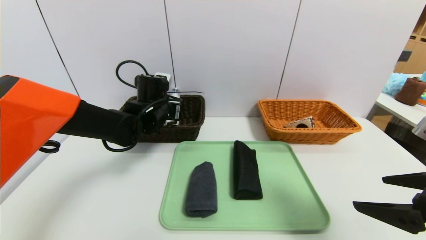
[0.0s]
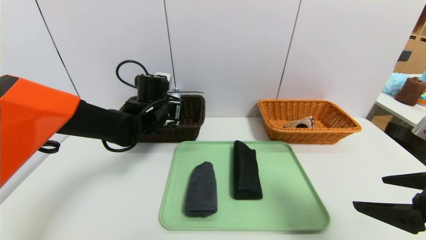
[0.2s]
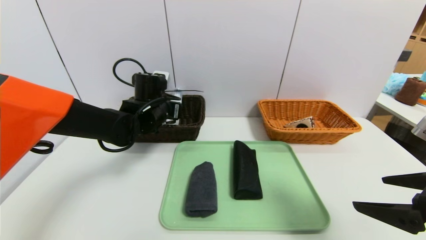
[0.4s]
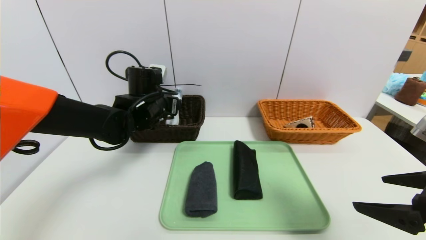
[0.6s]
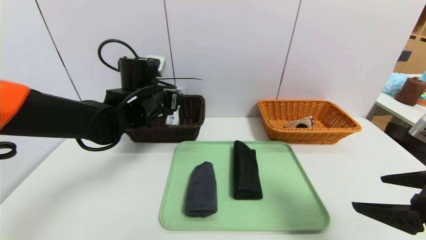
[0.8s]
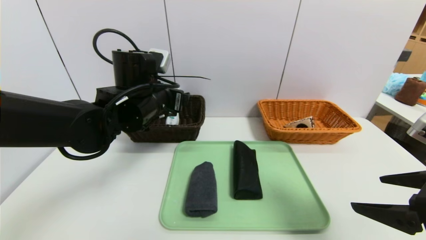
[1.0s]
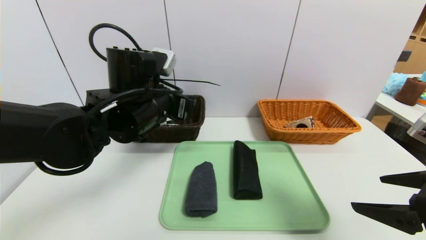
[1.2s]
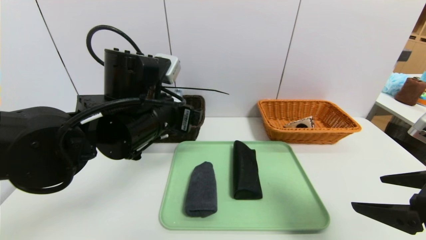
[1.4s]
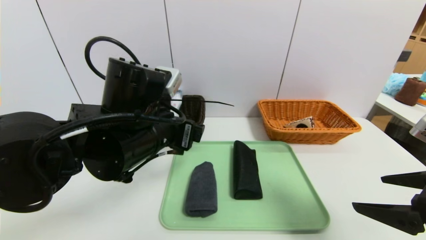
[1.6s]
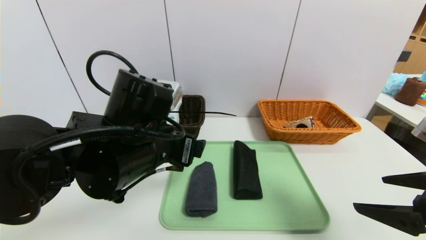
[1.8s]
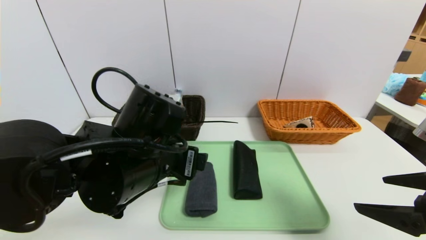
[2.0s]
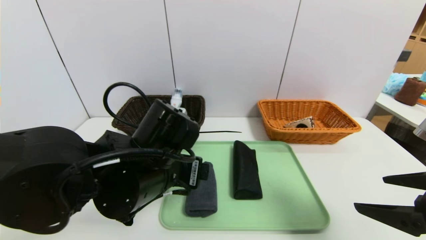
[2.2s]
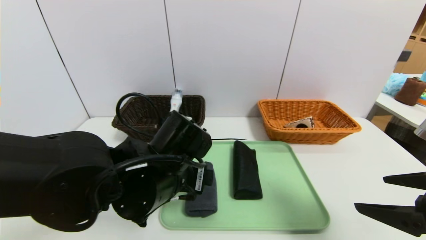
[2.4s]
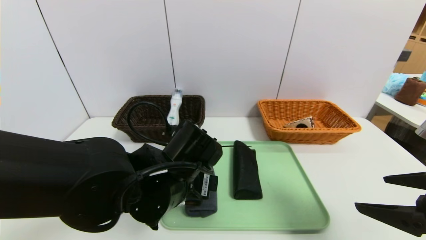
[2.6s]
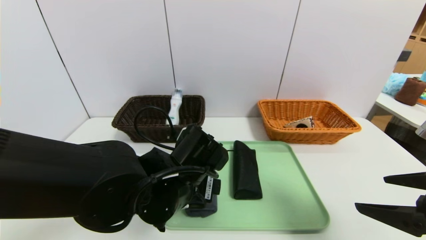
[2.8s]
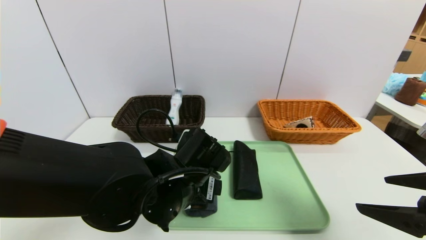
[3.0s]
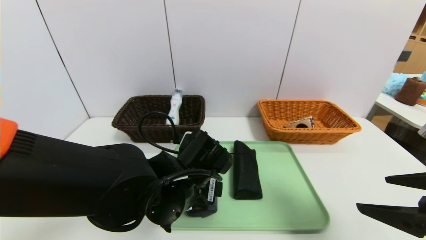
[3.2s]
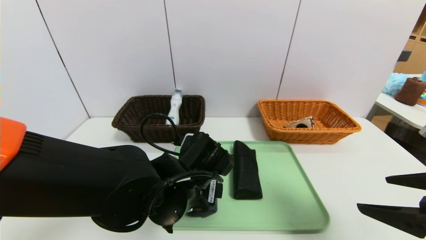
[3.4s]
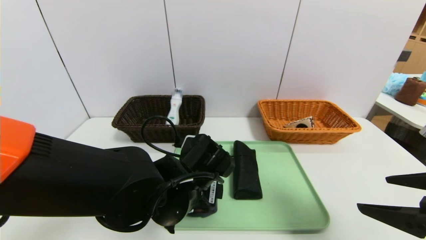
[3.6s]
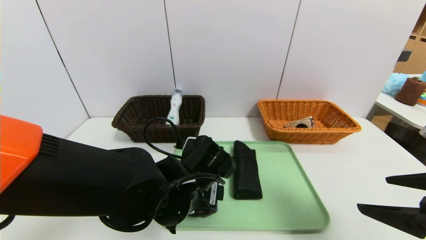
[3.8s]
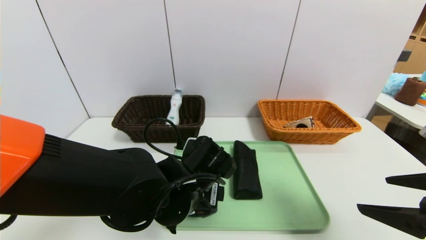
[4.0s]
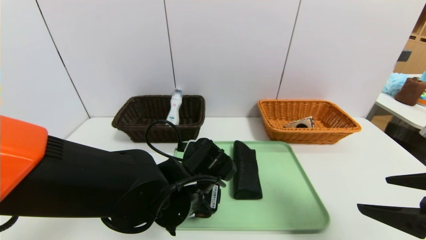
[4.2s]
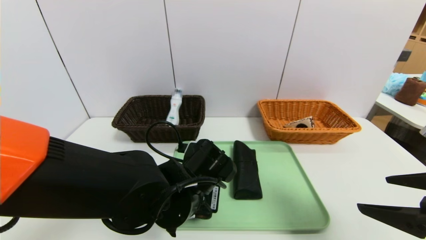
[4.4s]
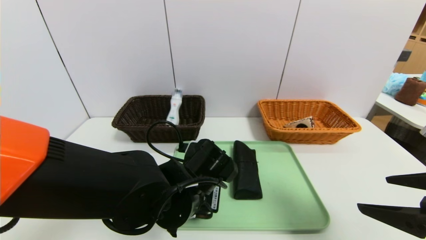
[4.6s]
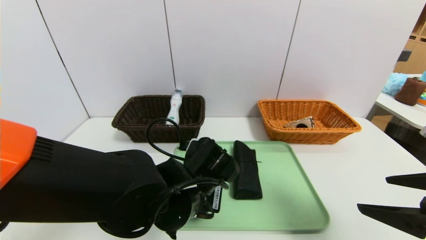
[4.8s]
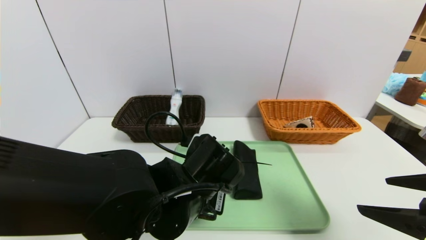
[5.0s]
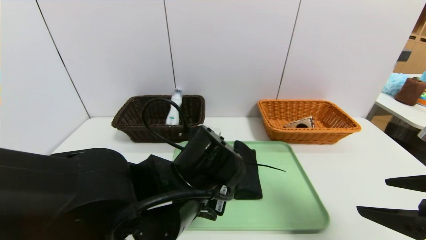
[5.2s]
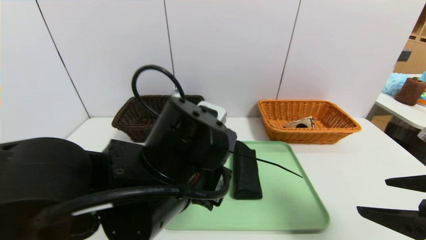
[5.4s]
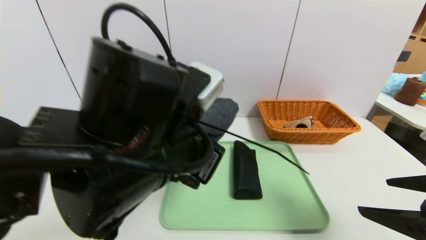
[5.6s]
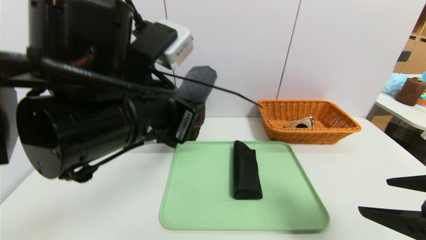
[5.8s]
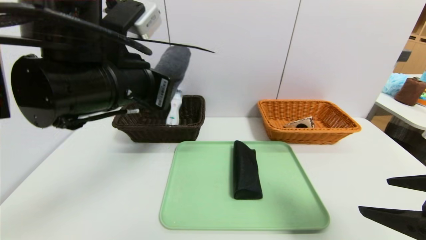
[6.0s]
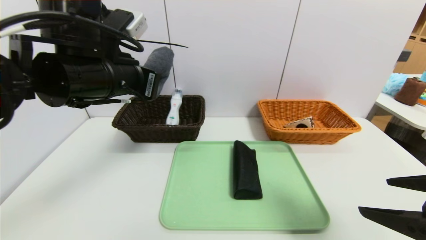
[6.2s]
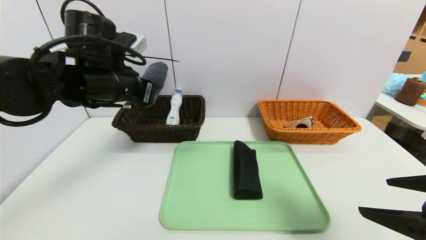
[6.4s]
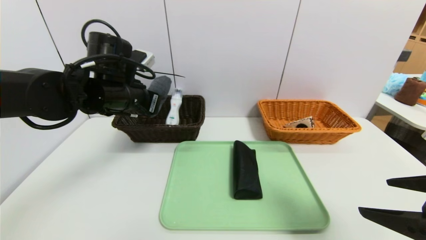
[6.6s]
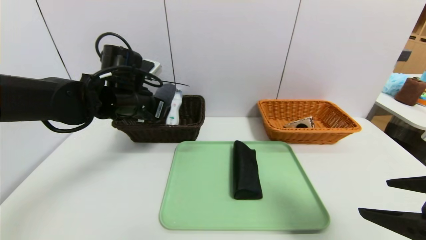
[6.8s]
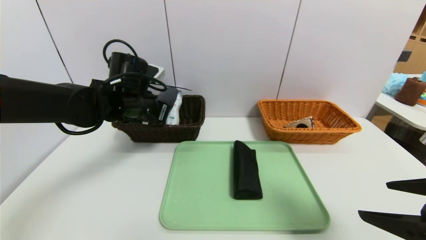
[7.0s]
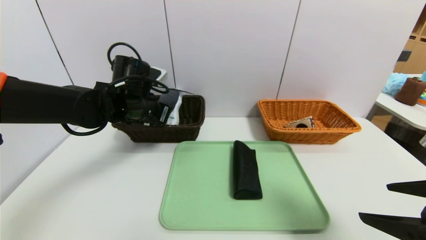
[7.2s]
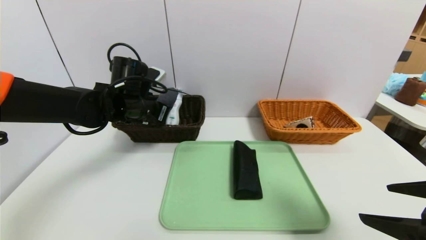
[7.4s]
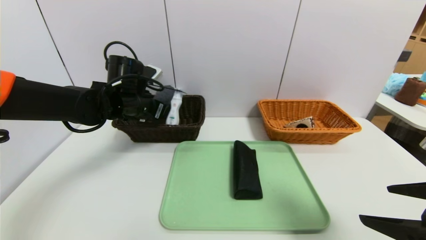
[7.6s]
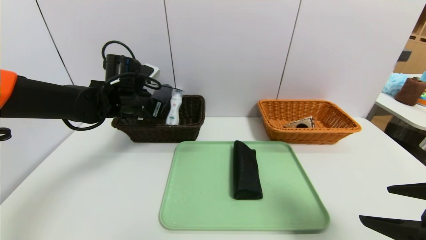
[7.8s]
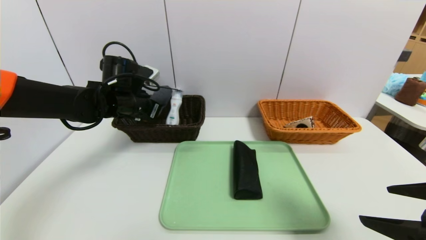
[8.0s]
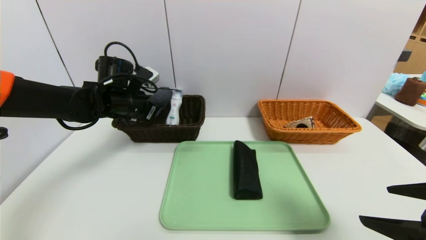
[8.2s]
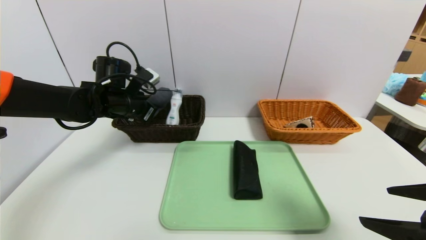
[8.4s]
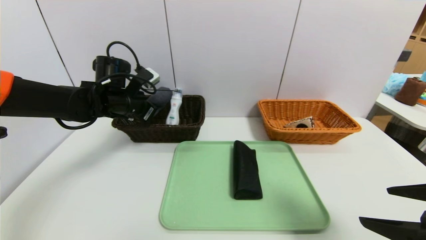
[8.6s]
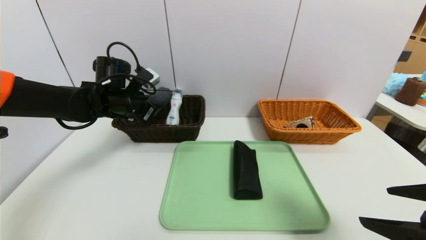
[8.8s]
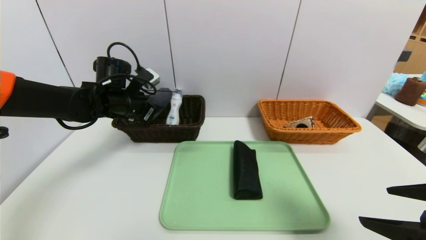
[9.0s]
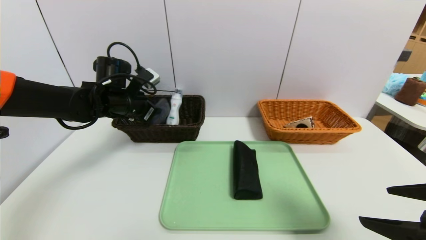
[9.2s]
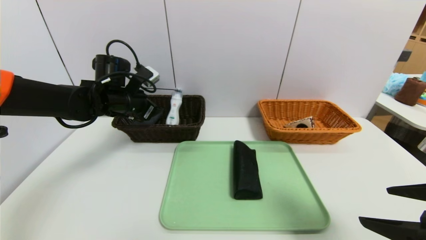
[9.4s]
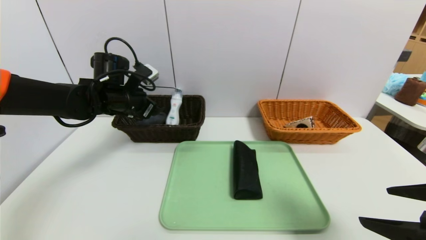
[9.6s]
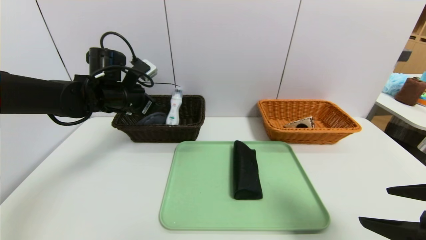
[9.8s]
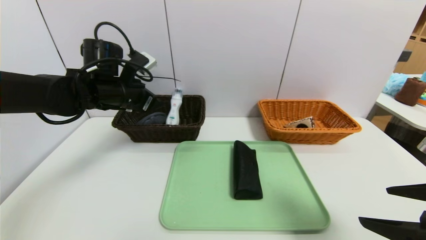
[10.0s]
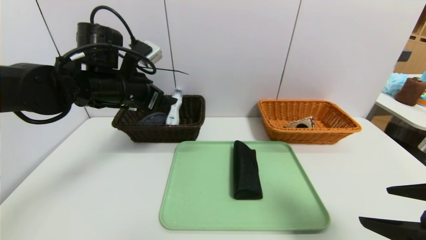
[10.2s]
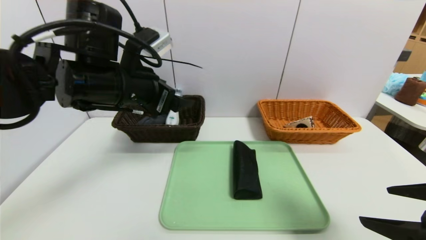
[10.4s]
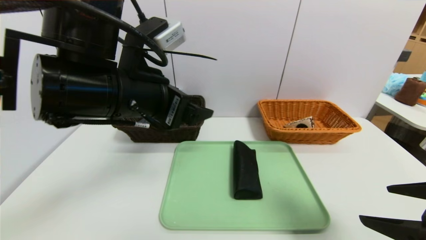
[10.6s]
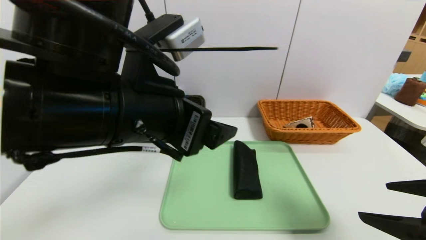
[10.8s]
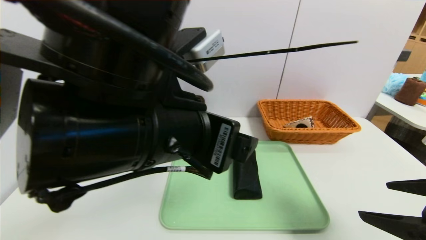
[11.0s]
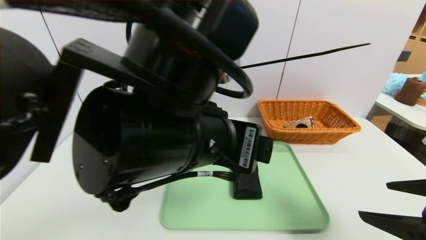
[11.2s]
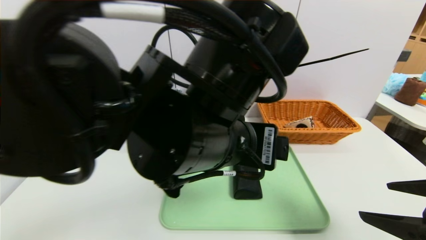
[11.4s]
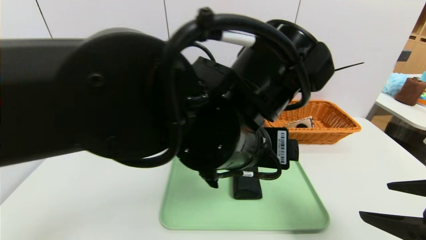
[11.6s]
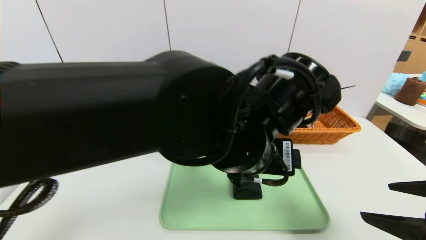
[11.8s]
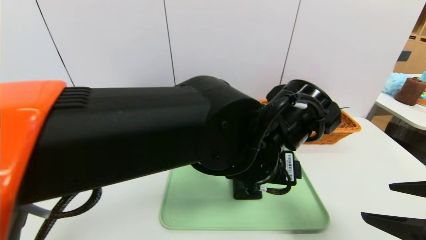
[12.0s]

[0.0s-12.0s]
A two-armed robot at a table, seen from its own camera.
Task of the whole recording: place the food in the right basket with the right gripper, and place the non food items in the left basket with the left gripper.
Step, 0.8s to 9.4s: Grasp the grey towel and put it in the left basket.
0.0s to 1.6s: The left gripper travels backward by roughly 15 cm.
1.6s to 3.0s: The left gripper heads downward, covering some 10 cm.
3.0s to 4.4s: The left gripper closes up.
4.4s to 6.0s: The left gripper shifts some 20 cm upward and to the left, and closes its fingers.
6.0s to 7.6s: The left gripper heads forward and downward, covering some 20 cm.
7.6s to 9.0s: The left gripper opens its fingers.
9.0s to 10.4s: The left gripper shifts some 15 cm backward, upward and to the right, and opens up.
10.4s to 12.0s: The left gripper shifts about 20 cm to the right.

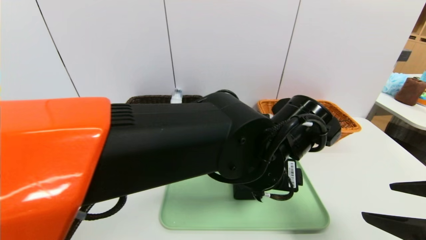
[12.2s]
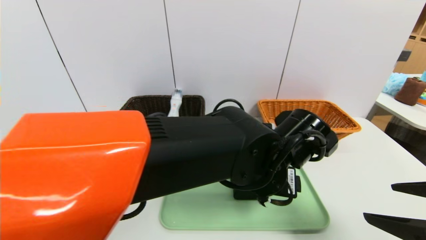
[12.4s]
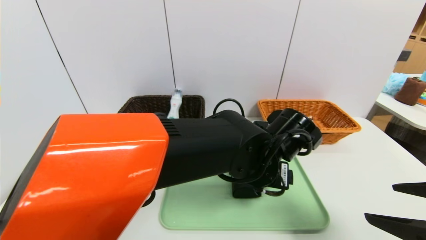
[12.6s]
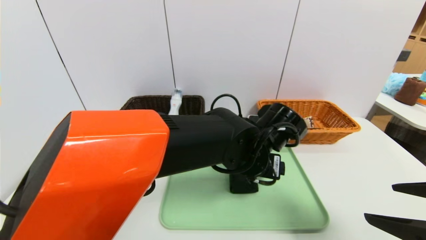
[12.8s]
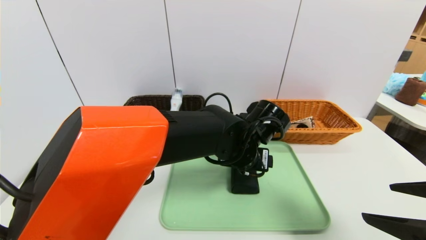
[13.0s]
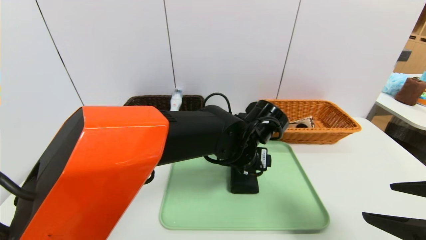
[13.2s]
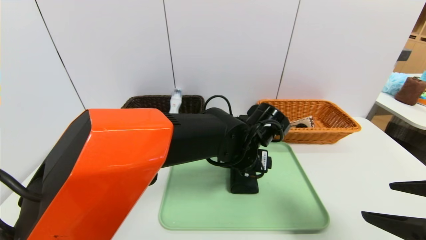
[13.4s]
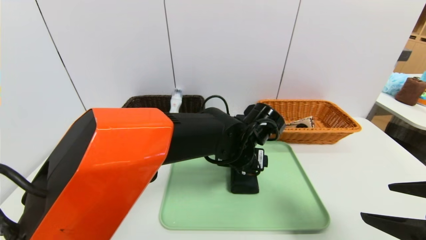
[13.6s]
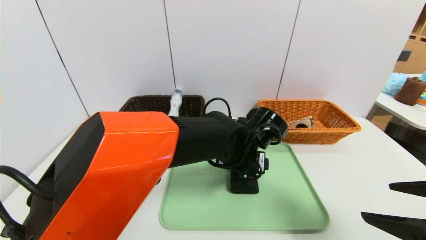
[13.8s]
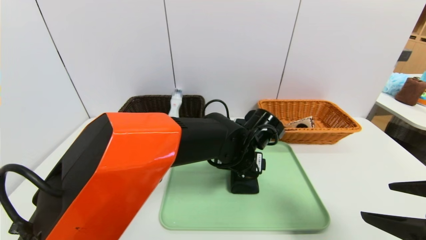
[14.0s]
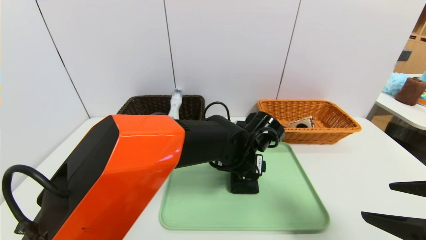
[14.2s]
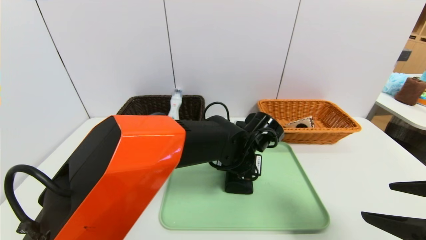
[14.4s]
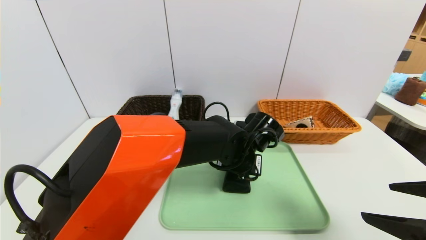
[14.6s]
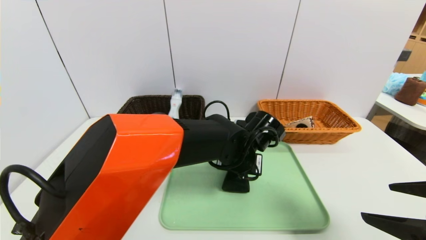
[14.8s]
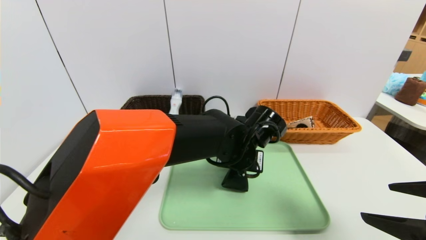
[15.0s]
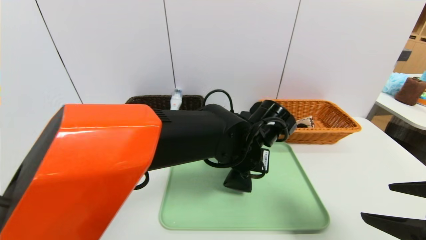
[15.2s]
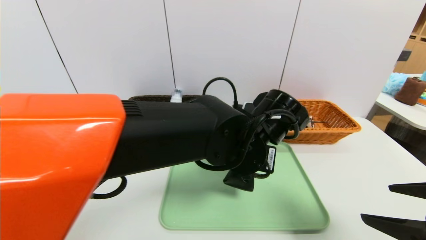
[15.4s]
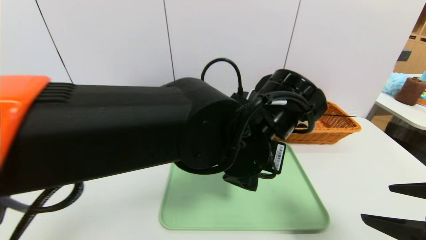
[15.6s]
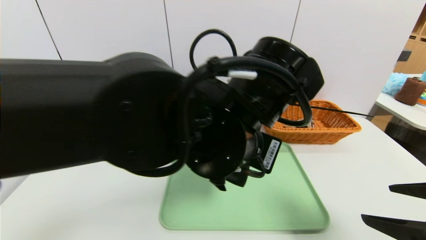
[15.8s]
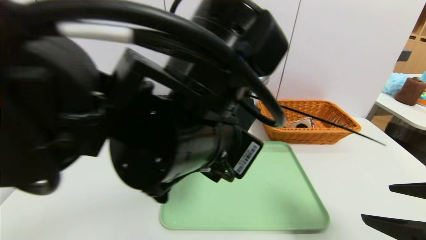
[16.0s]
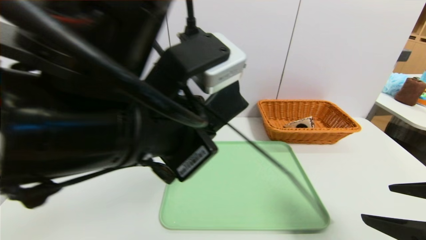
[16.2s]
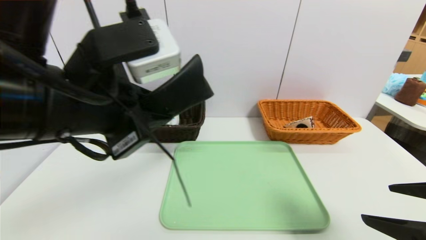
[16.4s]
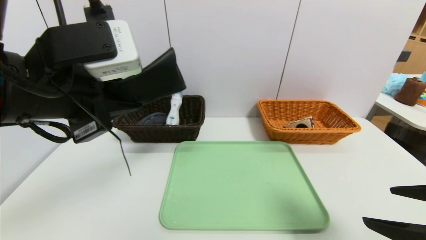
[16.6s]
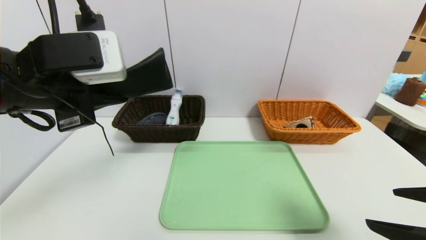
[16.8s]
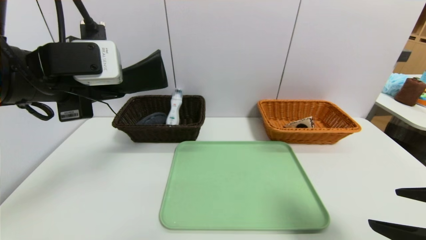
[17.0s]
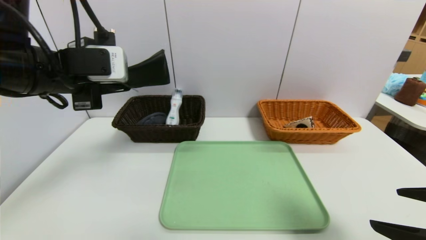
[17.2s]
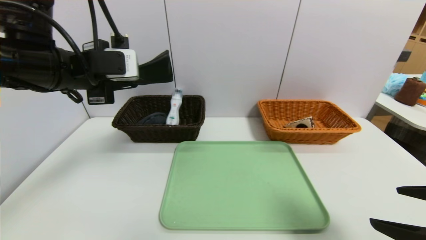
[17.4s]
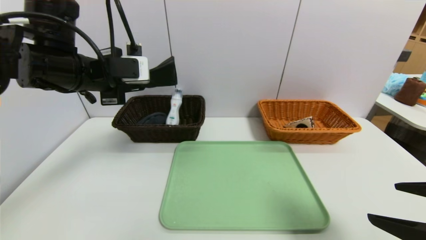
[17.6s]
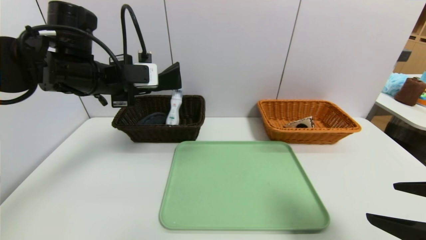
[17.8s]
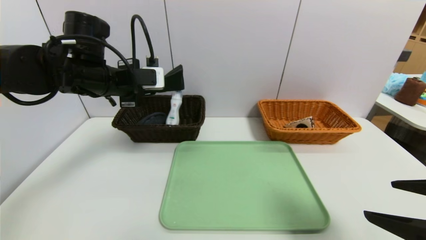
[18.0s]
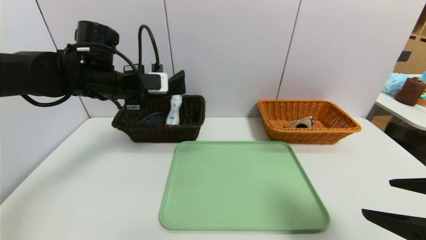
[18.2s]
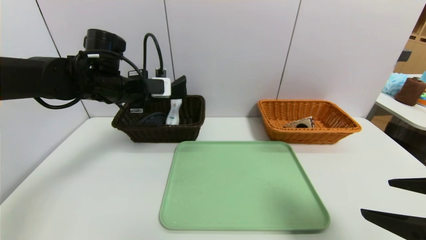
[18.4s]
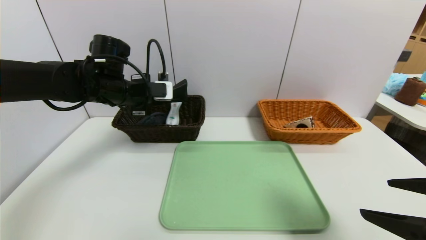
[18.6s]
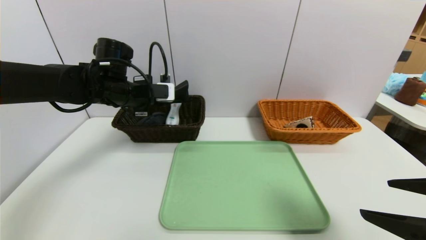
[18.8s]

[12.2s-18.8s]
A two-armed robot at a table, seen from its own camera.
Task of the whole recording: place the food in the right basket with the right gripper, and place the non food items in the left basket with the left gripper.
12.2s to 13.8s: The left gripper is displaced forward and downward by about 10 cm.
13.8s to 15.4s: The left gripper goes roughly 10 cm upward and backward, and closes up.
15.4s to 17.2s: The left gripper shifts approximately 30 cm to the left and upward.
17.2s to 18.8s: The left gripper travels forward and downward by about 15 cm.
